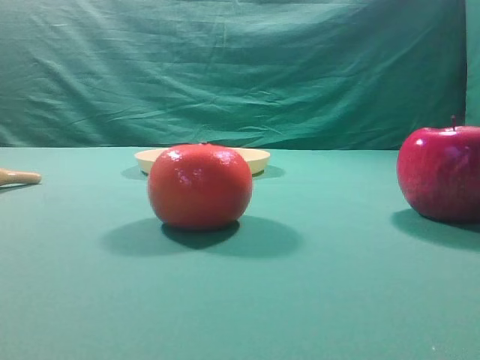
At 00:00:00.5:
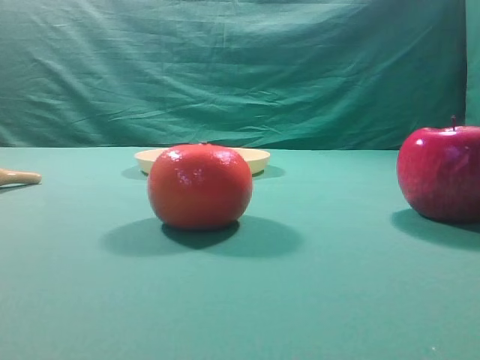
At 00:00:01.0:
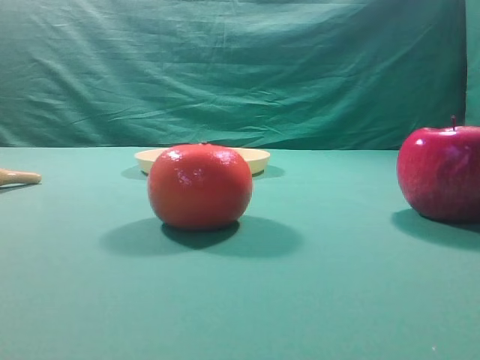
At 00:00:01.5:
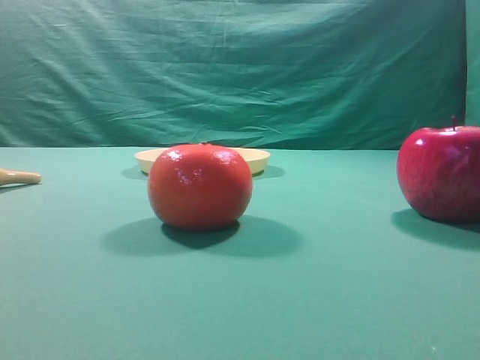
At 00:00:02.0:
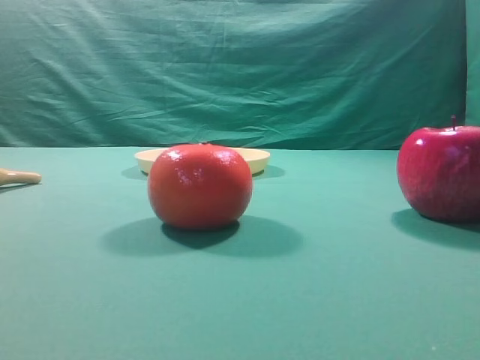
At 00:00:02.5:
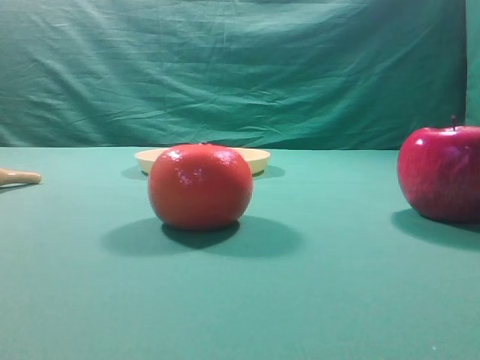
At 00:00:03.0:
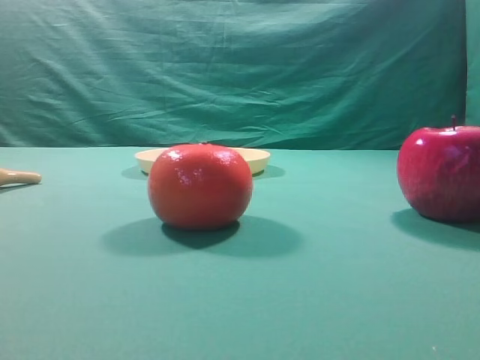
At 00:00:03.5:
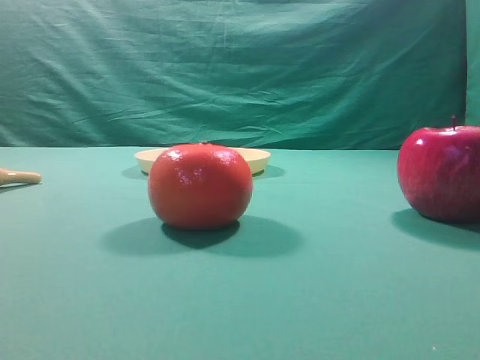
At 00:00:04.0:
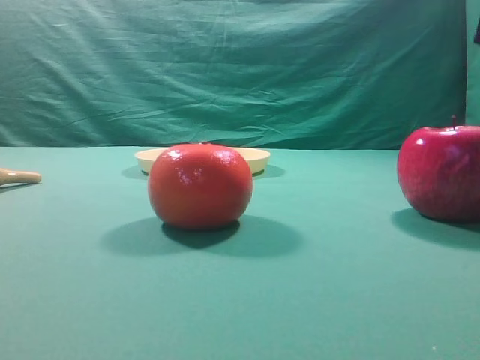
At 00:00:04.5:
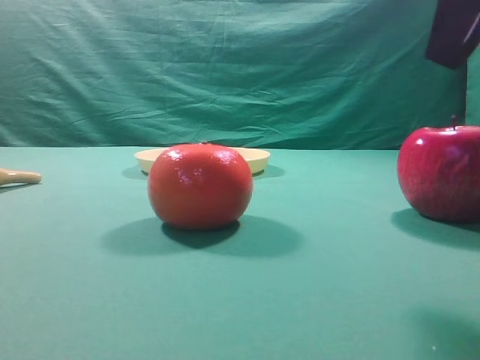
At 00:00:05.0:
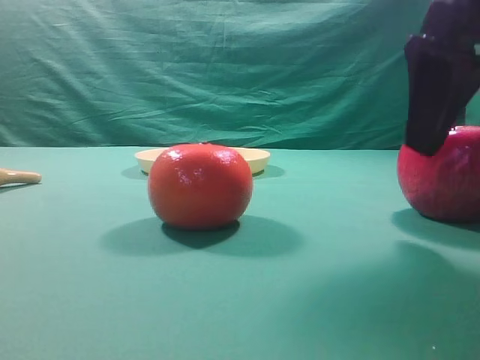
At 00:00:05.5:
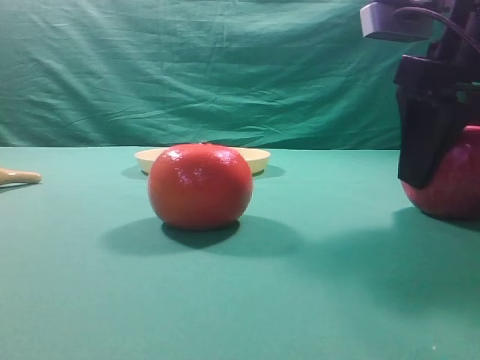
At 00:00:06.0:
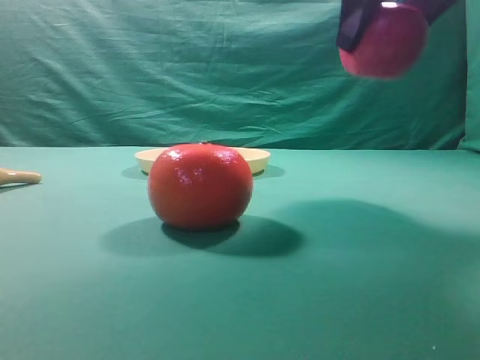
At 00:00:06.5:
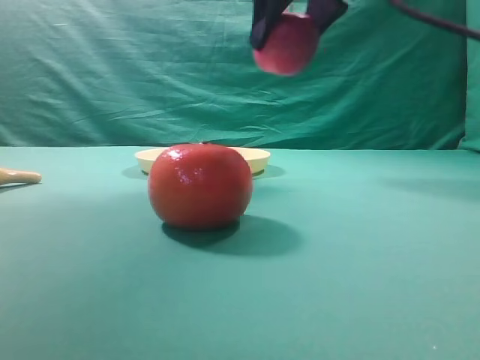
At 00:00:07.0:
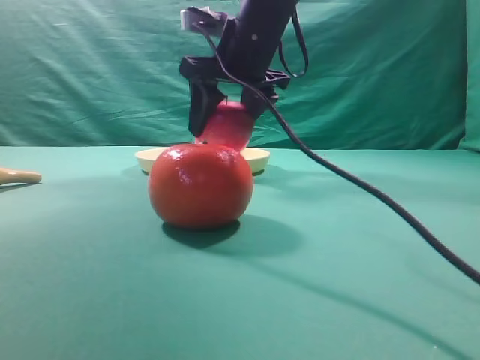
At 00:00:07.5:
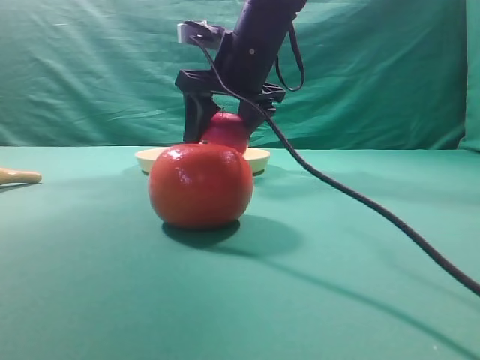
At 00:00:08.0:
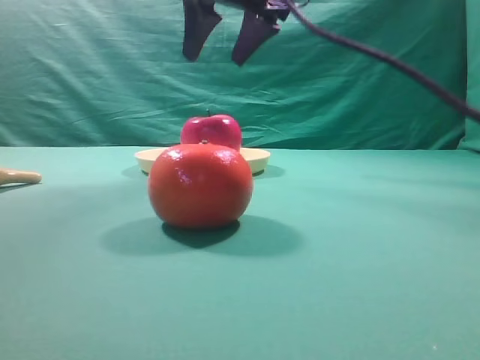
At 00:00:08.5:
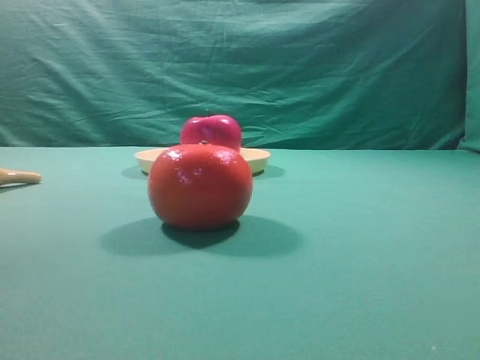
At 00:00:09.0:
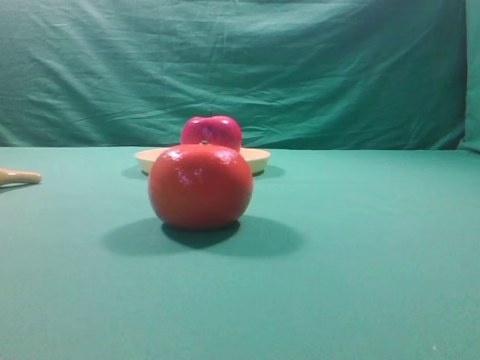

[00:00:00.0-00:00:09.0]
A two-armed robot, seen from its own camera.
Task of the whole recording: grasp the apple and place it into the yellow plate.
Step, 00:00:00.0 to 00:00:05.5: Grasp the fruit that can keep the doctor away.
Step, 00:00:06.0 to 00:00:07.5: Place the picked object into the yellow plate.

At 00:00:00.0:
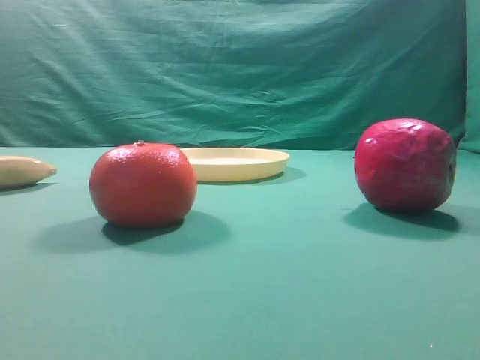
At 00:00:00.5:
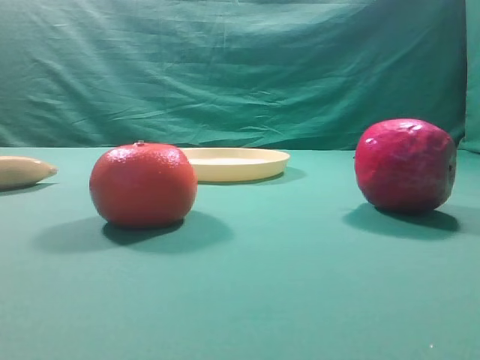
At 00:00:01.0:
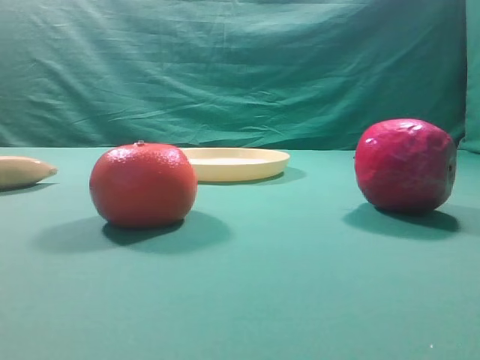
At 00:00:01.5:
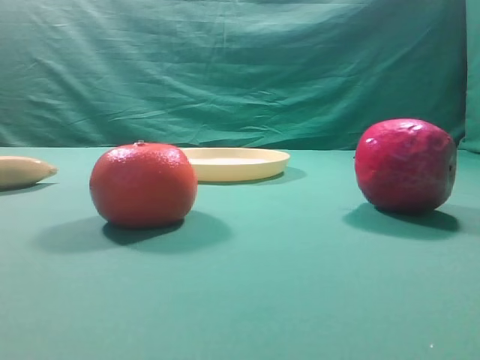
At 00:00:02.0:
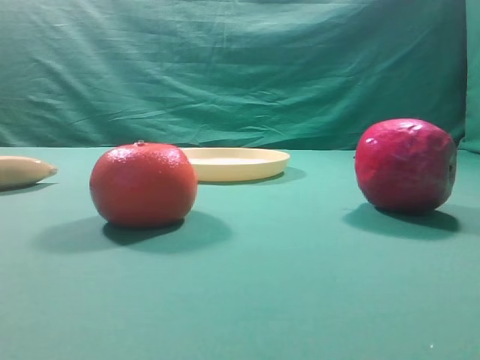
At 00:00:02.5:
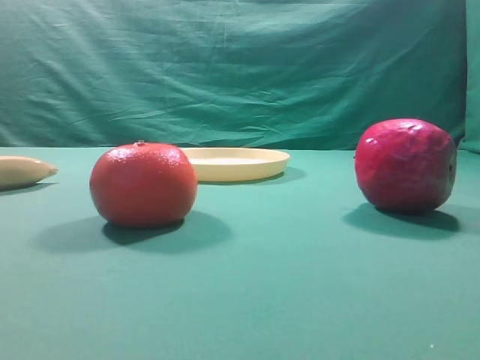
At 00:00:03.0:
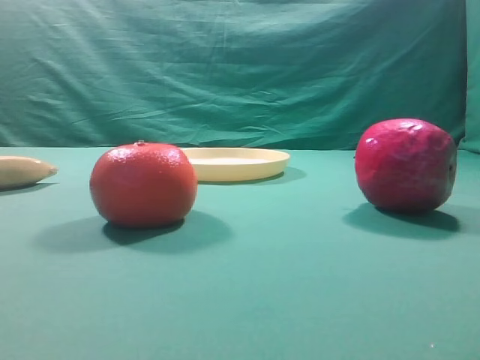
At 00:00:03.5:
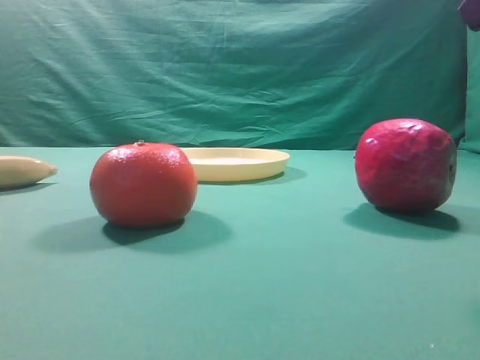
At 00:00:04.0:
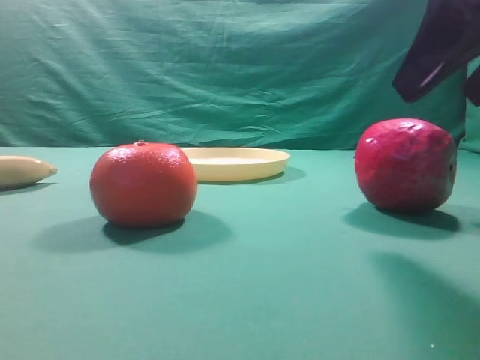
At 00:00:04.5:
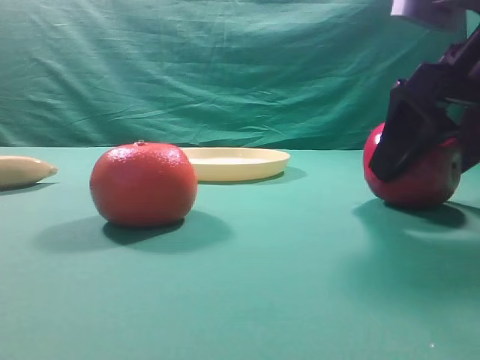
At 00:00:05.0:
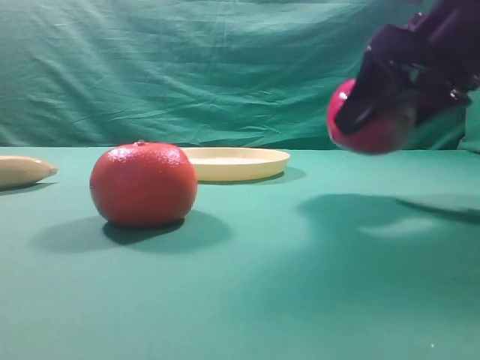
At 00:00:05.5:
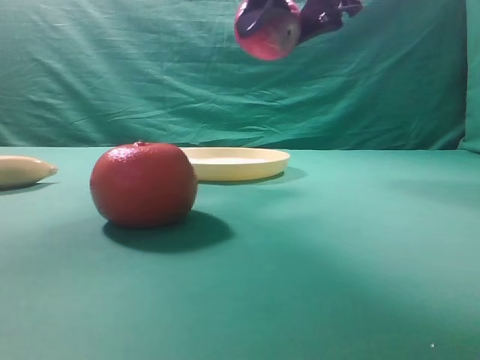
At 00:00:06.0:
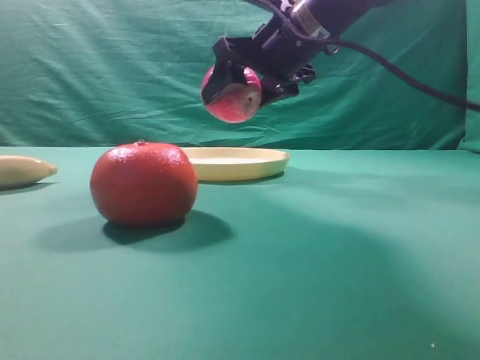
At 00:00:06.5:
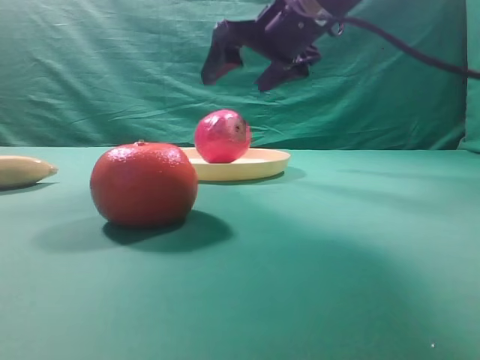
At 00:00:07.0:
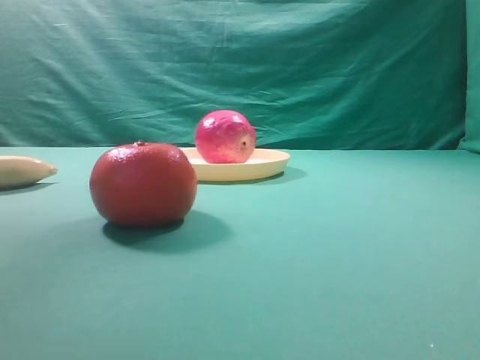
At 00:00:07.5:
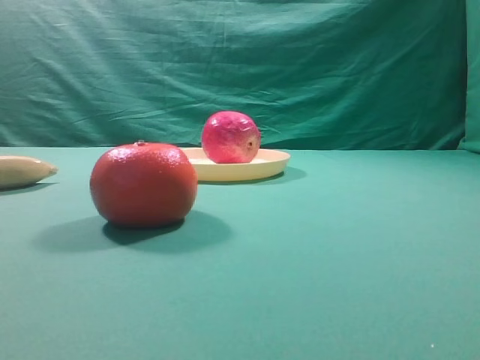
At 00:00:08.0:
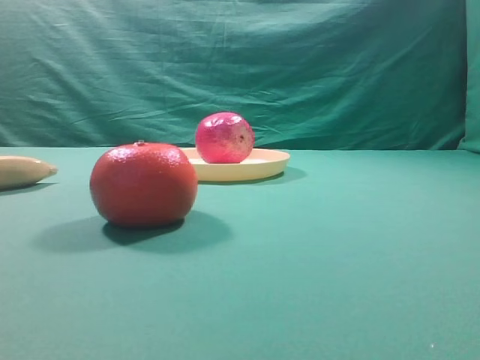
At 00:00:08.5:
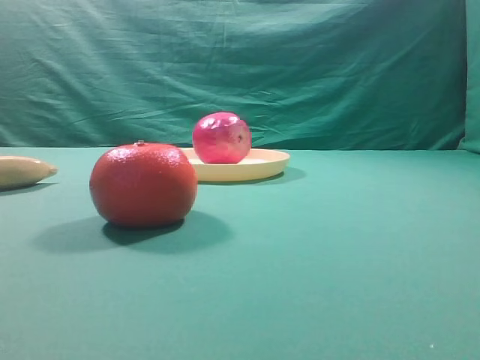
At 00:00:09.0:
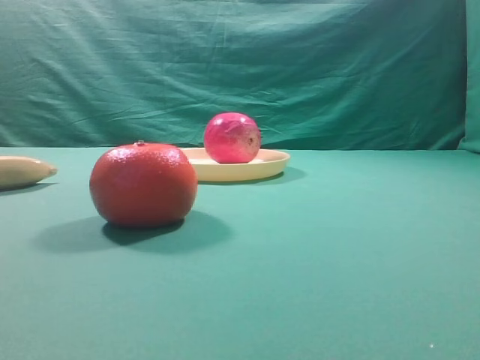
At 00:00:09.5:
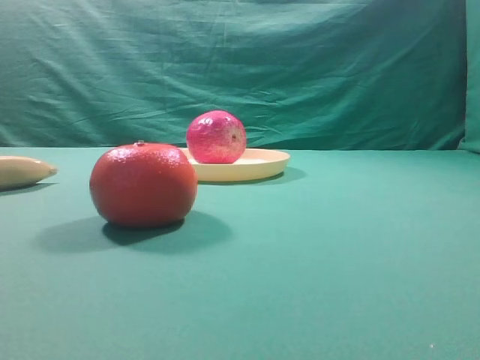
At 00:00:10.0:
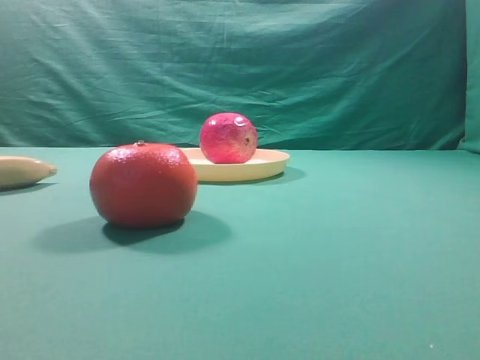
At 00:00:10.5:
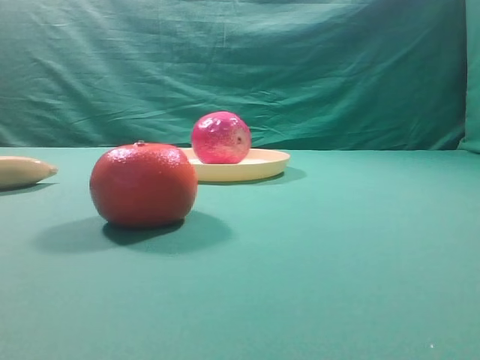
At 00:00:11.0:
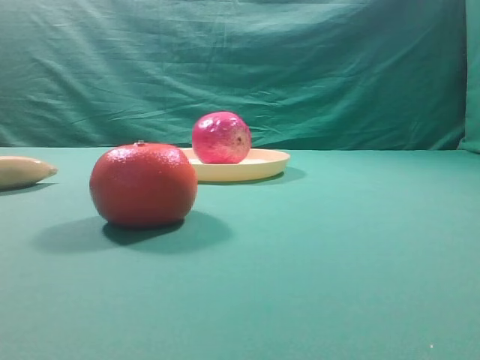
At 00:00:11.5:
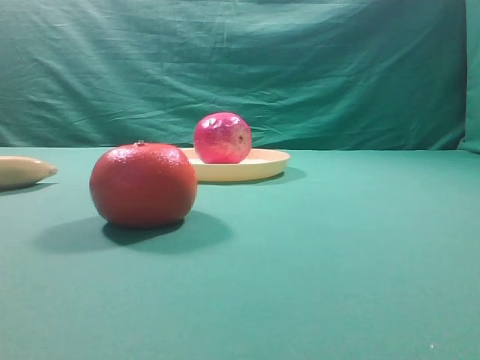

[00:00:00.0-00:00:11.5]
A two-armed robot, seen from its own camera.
Task of the whole recording: grasp the apple and place it into the yellow plate.
Step, 00:00:00.0 to 00:00:04.5: Grasp the fruit that can keep the doctor away.
Step, 00:00:05.5 to 00:00:06.5: Place the picked object into the yellow plate.
